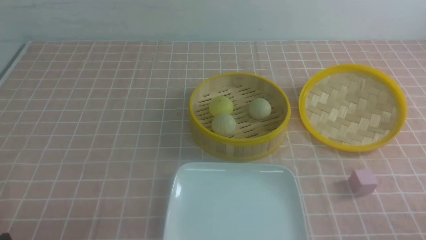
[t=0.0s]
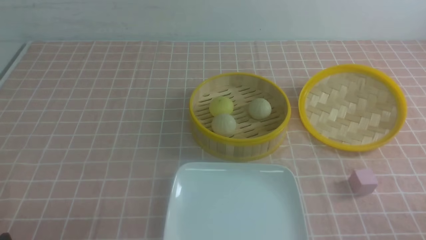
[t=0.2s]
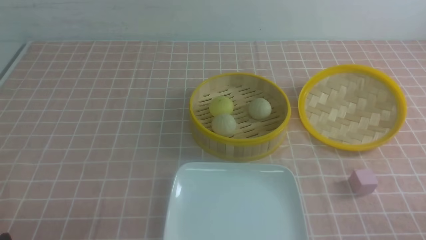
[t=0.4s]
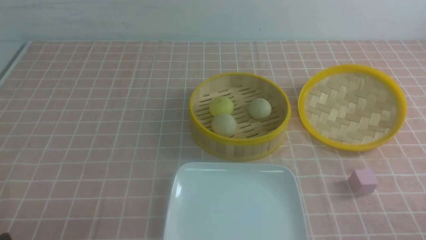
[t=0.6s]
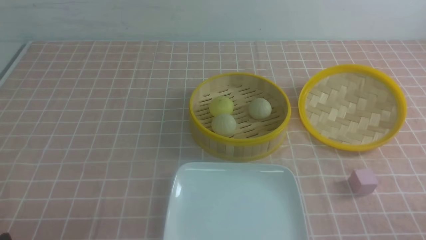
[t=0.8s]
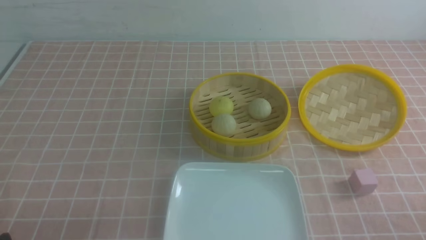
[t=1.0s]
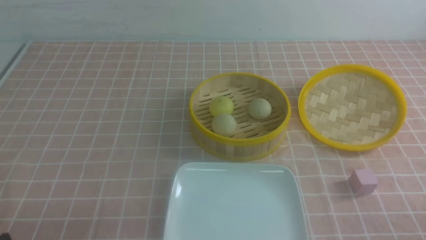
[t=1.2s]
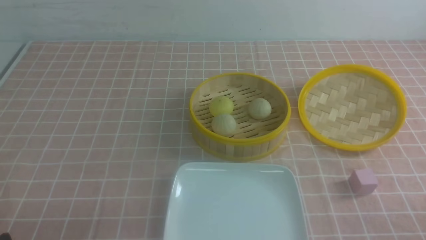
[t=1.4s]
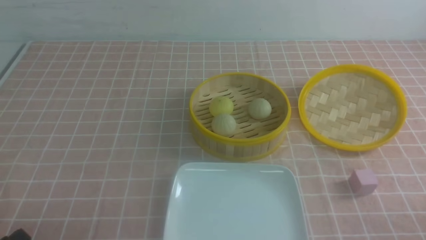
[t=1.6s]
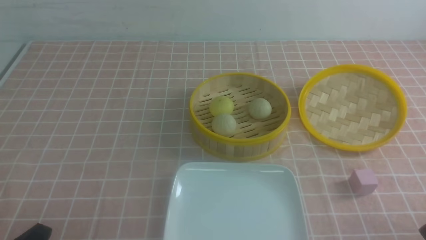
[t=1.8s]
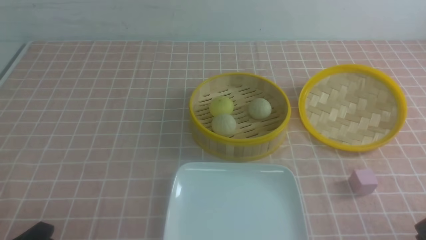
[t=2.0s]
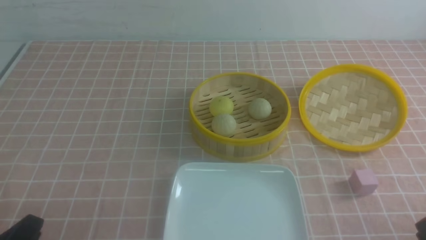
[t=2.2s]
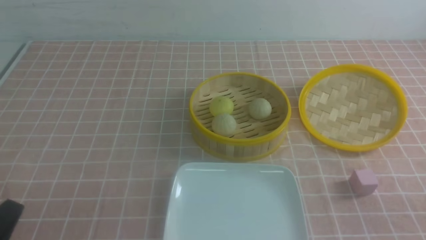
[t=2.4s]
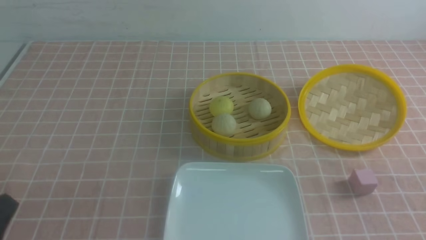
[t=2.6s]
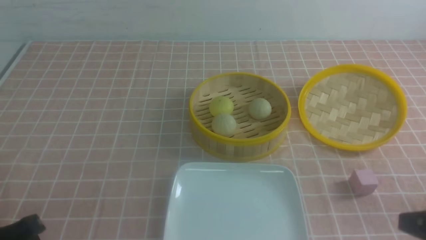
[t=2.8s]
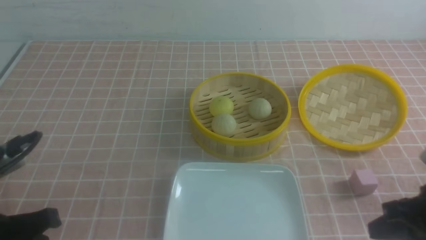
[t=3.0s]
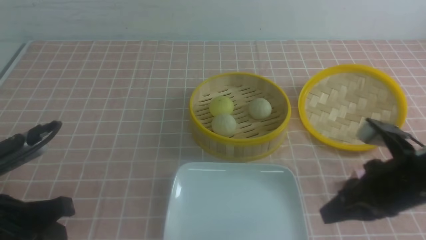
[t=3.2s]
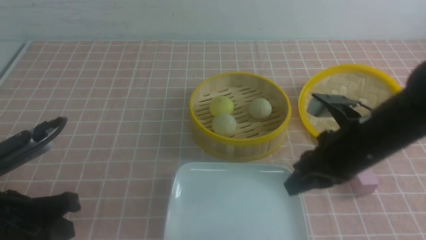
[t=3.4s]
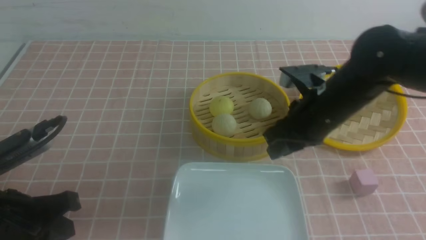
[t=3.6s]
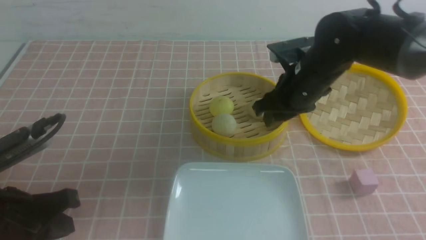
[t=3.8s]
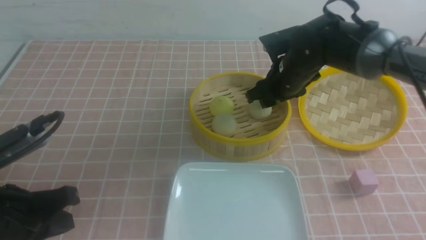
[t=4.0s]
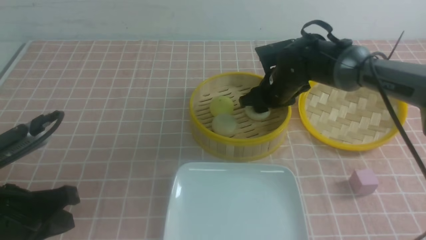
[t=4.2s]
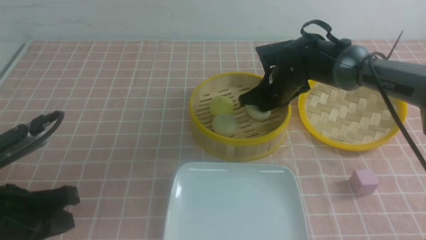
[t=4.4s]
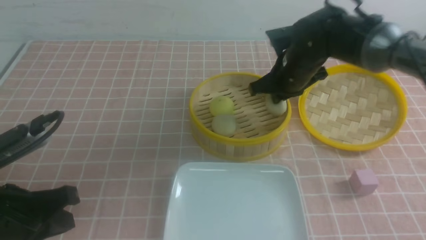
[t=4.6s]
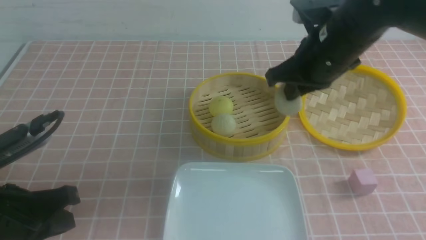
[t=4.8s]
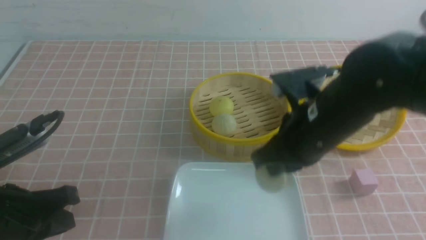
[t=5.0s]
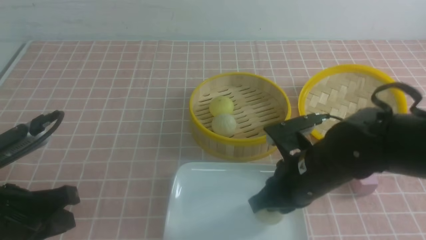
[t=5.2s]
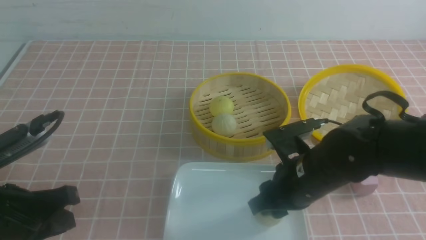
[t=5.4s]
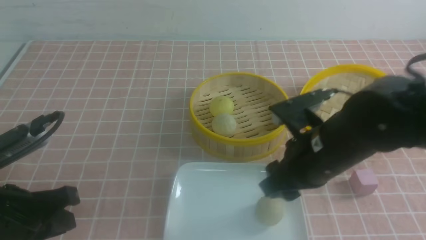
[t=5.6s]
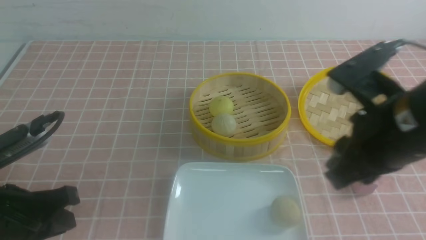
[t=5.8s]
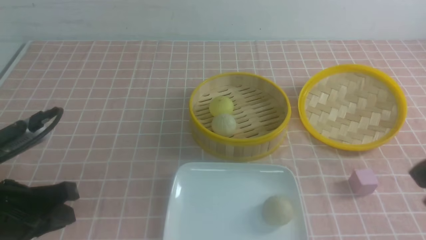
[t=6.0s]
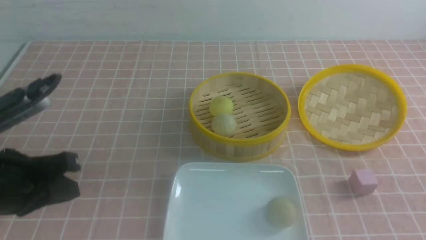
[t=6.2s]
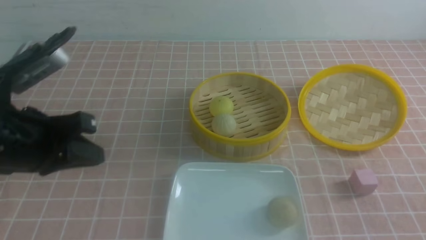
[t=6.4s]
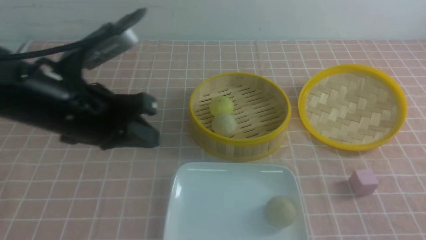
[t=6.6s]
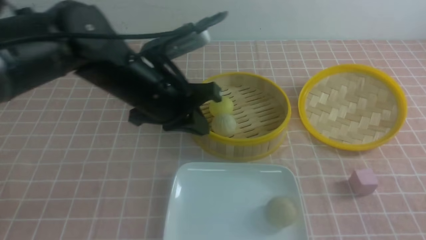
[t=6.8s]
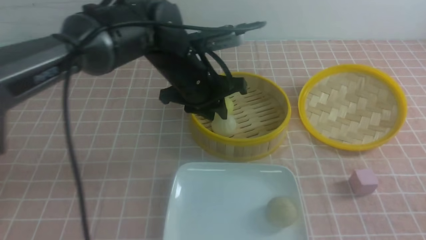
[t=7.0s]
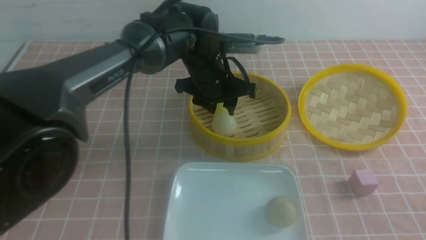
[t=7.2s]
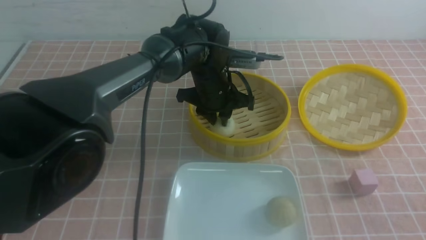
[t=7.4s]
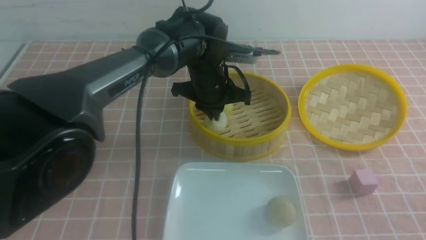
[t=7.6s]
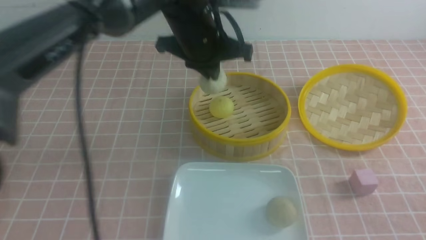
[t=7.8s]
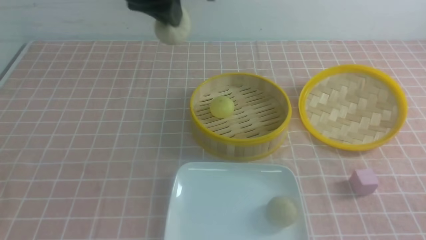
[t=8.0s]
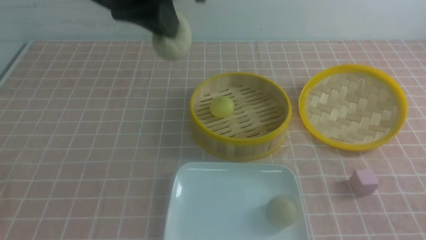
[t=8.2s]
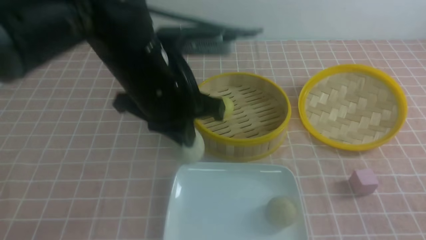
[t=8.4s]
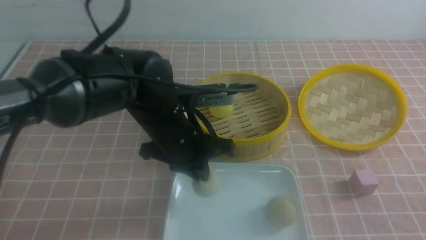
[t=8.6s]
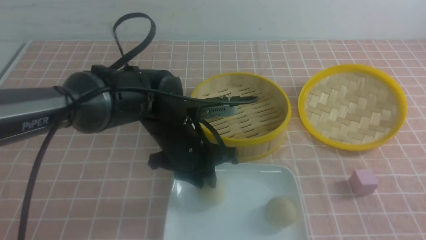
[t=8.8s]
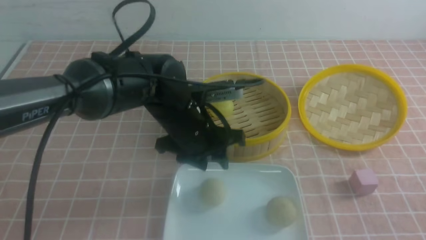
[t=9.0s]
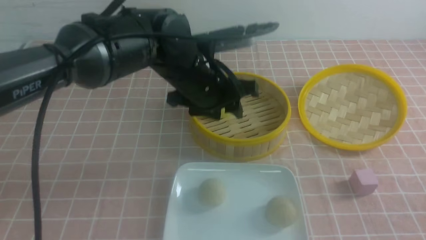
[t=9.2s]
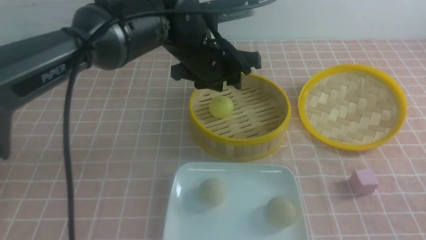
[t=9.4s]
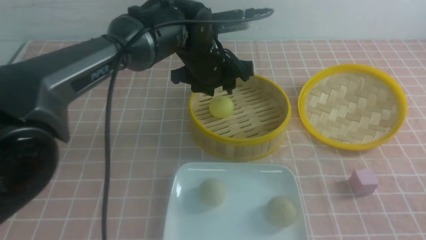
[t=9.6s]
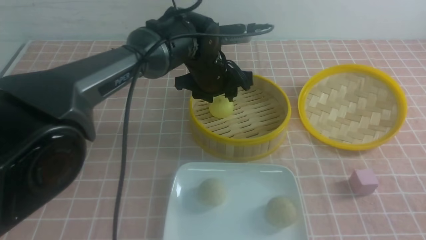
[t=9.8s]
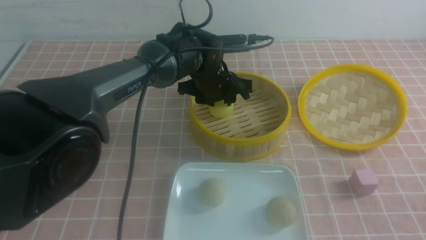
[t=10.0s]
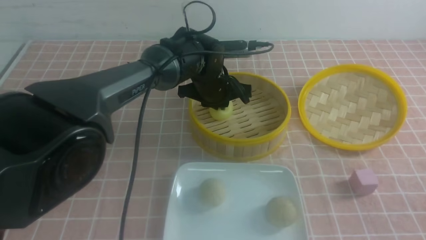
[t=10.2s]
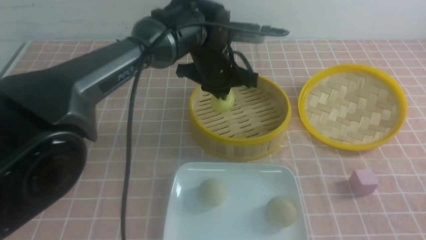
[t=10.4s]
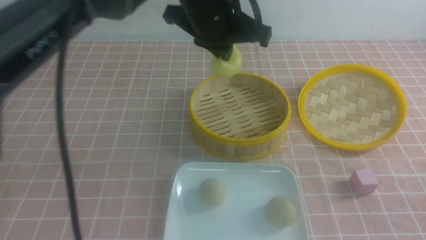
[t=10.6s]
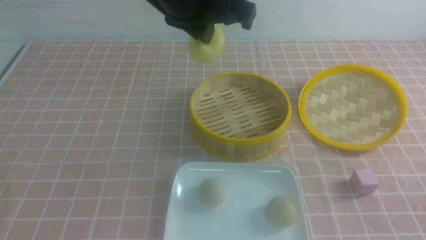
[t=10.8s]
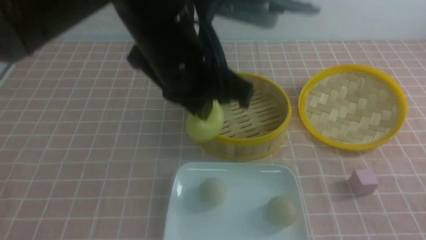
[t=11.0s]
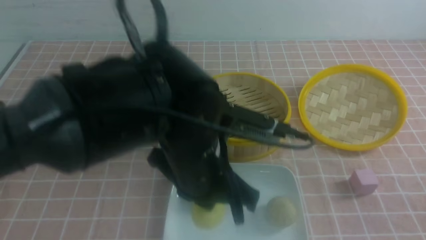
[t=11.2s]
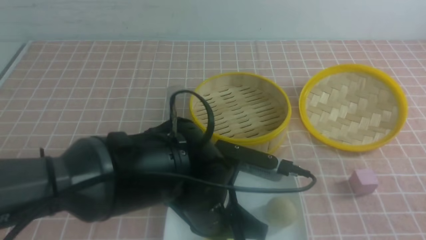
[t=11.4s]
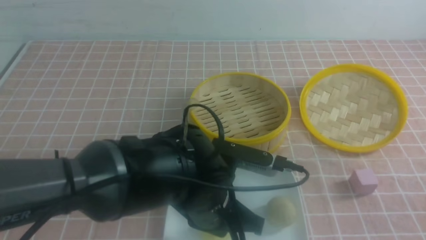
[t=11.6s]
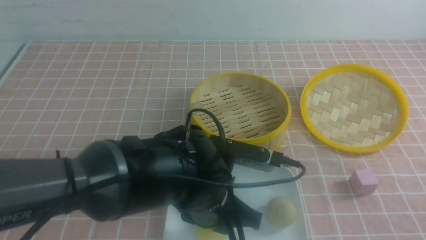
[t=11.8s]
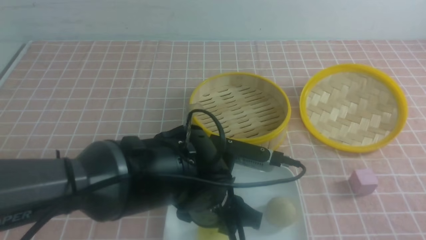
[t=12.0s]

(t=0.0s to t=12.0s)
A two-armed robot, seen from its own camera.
Step, t=0.0s - t=4.4s: use the right arm to grab the steamed stuffed bun that is closest to it.
Step, t=4.6s - t=5.4s: use the right arm to put the steamed stuffed bun into the plate.
Step, t=5.6s - t=7.4s: use the left arm to grab the steamed stuffed bun that is closest to it.
Step, t=7.6s - t=8.8s: use the left arm to put the steamed stuffed bun into the plate.
Step, t=9.0s - t=10.0s: use the left arm to grab the steamed stuffed bun that is closest to it.
Step, t=10.2s - t=11.8s: use the left arm to put the steamed stuffed bun into the plate.
t=1.6s - t=3.0s: The right gripper moves forward, upward and to the left, roughly 15 cm, and closes its fingers, while the left gripper moves upward and forward, about 10 cm, and closes its fingers.
t=3.0s - t=4.4s: The right gripper travels forward and to the left by approximately 30 cm, and opens, then closes once more.
t=4.4s - t=6.0s: The right gripper moves backward and upward, some 35 cm, and opens, then closes again.
t=6.0s - t=7.6s: The left gripper goes approximately 35 cm forward and to the right, and opens, then closes again, while the right gripper shifts roughly 10 cm downward and backward.
t=7.6s - t=9.0s: The left gripper moves backward, approximately 10 cm, reaches about 15 cm upward, then returns, and opens.
t=9.0s - t=10.4s: The left gripper heads forward and upward, covering about 10 cm, and closes its fingers.
t=10.4s - t=12.0s: The left gripper is displaced backward and downward by approximately 20 cm, and opens up, while the right gripper moves approximately 5 cm.

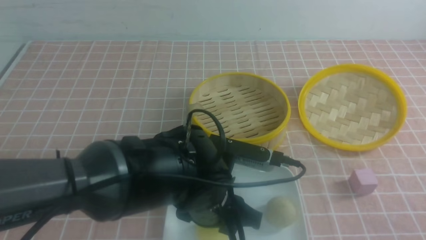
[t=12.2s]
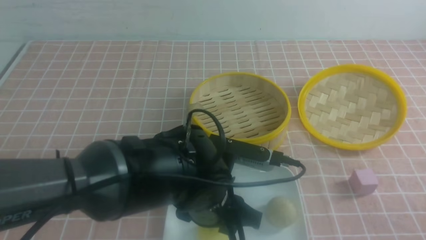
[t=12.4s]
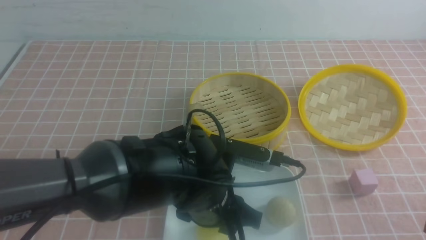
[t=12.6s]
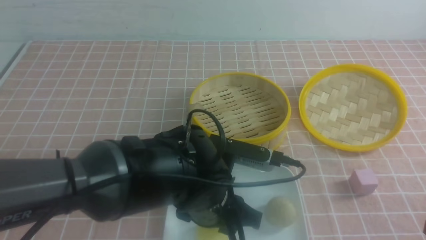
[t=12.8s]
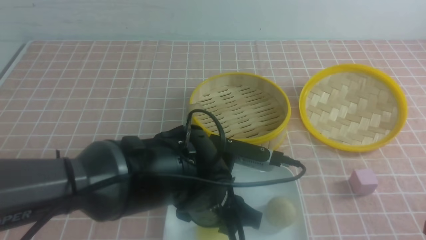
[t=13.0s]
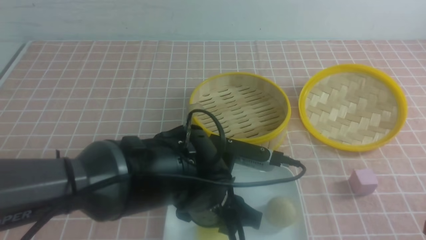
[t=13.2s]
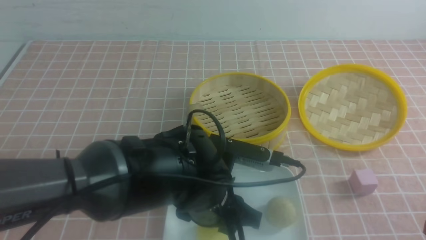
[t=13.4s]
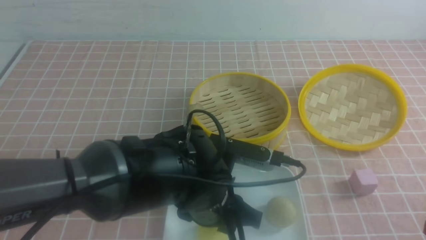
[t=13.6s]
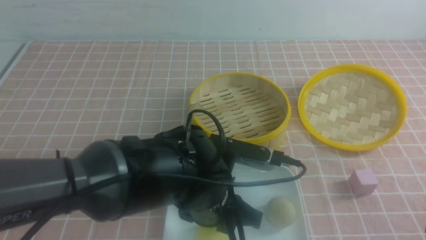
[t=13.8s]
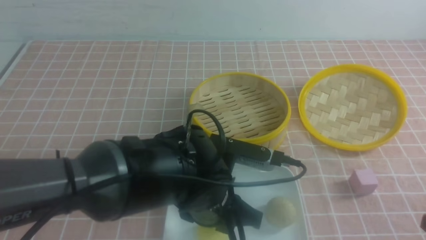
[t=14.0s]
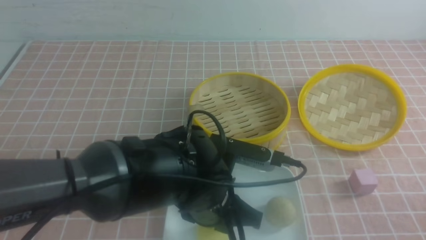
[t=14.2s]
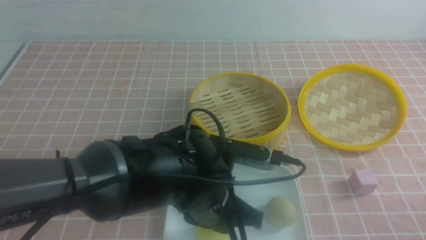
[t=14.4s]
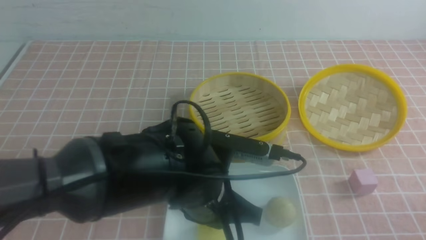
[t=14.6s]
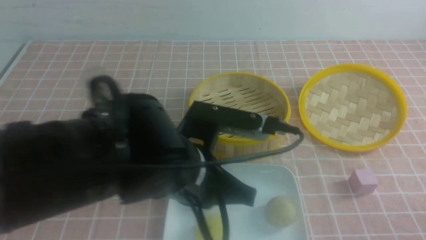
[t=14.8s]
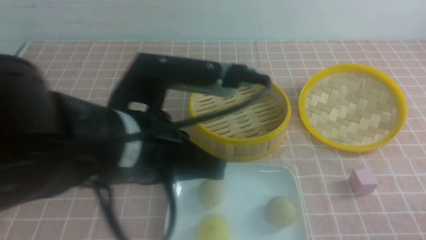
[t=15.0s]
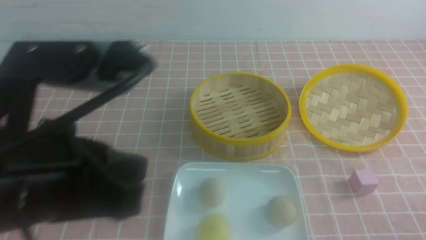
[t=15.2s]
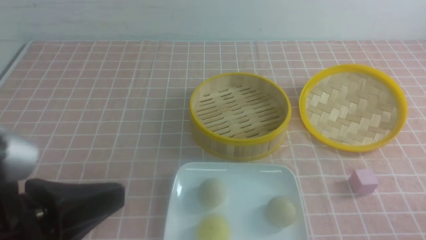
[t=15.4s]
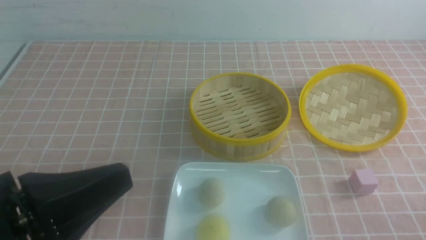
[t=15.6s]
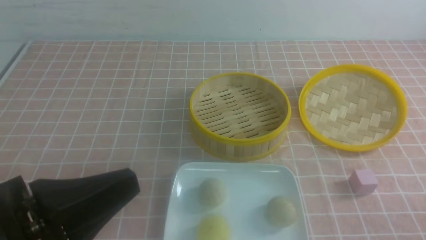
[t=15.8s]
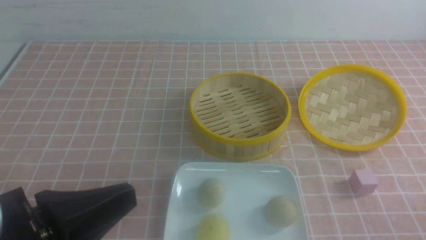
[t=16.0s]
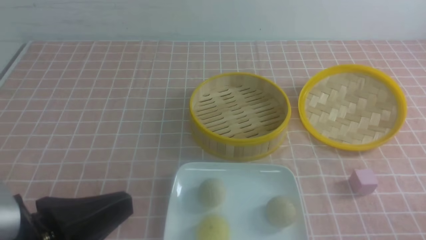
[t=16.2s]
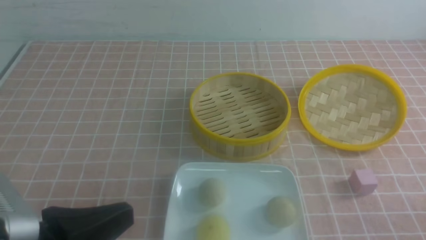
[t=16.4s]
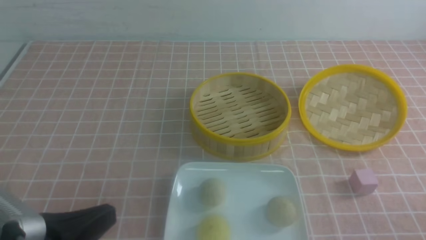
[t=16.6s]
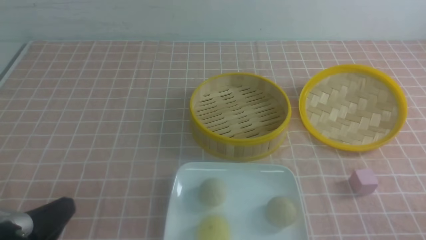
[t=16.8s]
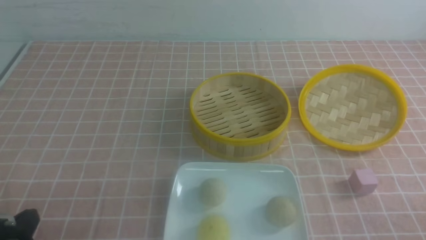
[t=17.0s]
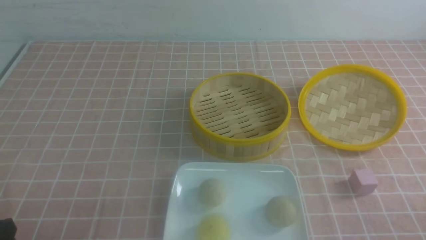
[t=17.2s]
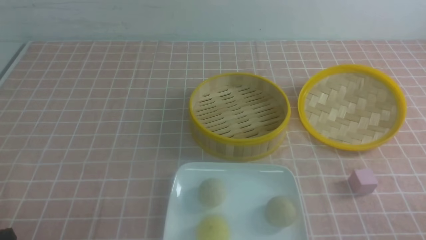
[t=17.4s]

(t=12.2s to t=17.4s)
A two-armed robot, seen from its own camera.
t=14.0s - t=15.6s: The left gripper goes some 25 cm to the left, backward and upward, and closes its fingers; the right gripper is displaced downward by roughly 5 cm.
t=15.6s - t=17.4s: The left gripper heads downward and to the left, covering some 15 cm.
